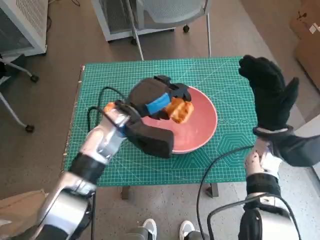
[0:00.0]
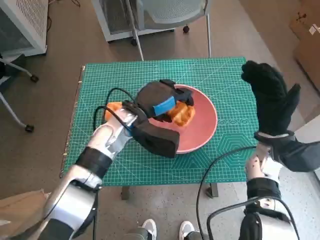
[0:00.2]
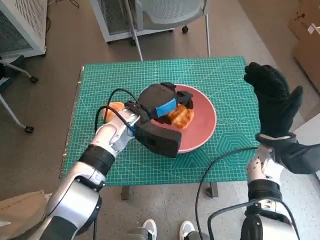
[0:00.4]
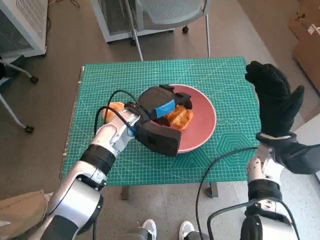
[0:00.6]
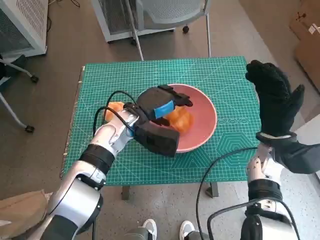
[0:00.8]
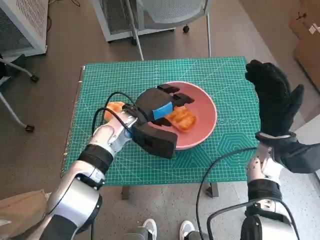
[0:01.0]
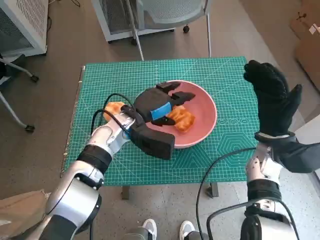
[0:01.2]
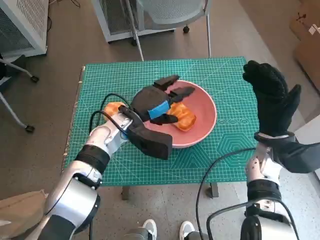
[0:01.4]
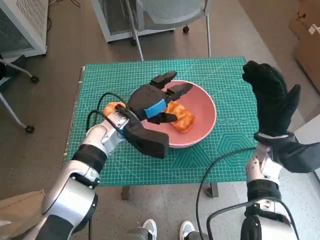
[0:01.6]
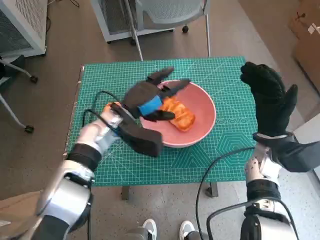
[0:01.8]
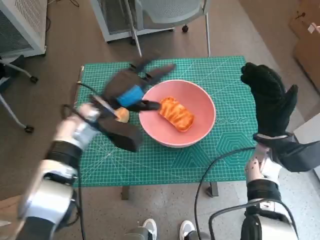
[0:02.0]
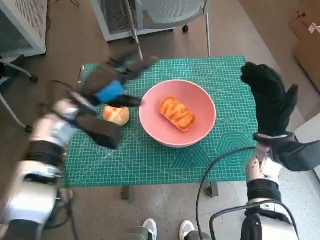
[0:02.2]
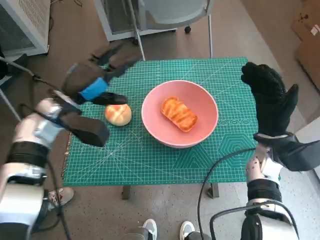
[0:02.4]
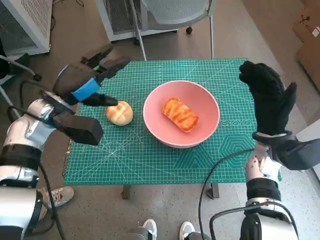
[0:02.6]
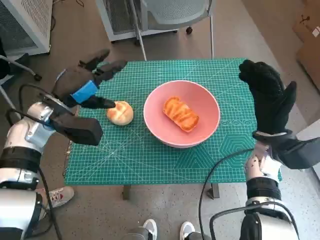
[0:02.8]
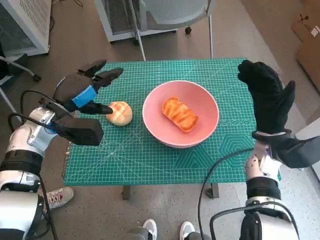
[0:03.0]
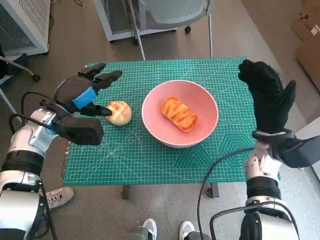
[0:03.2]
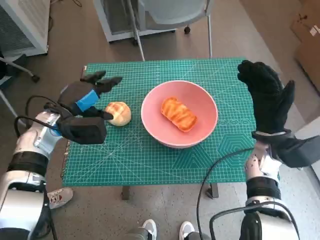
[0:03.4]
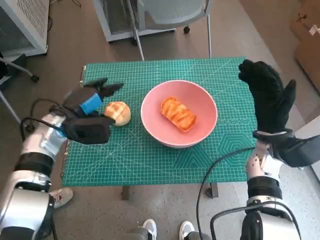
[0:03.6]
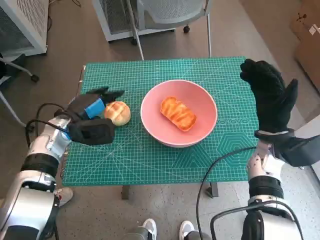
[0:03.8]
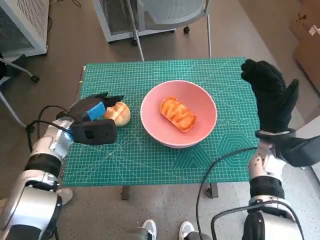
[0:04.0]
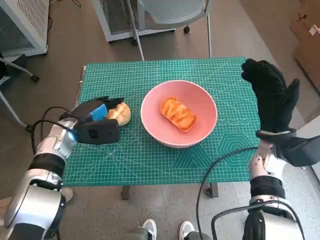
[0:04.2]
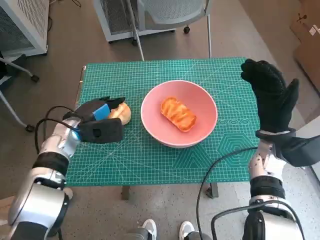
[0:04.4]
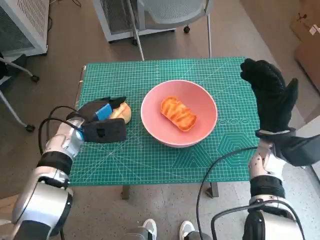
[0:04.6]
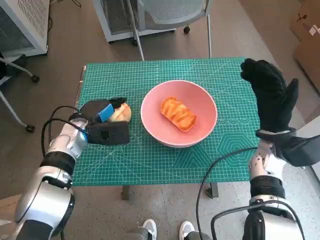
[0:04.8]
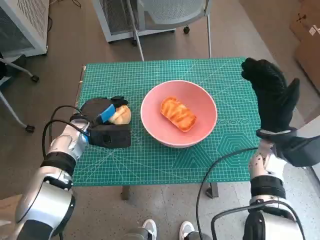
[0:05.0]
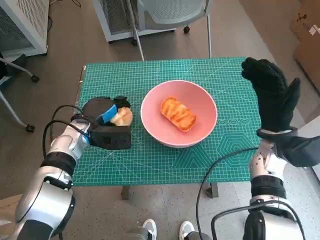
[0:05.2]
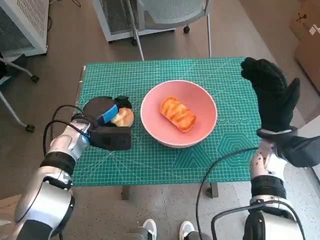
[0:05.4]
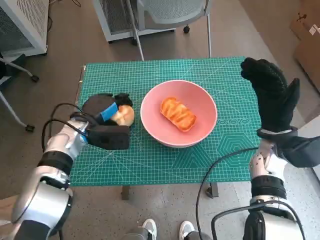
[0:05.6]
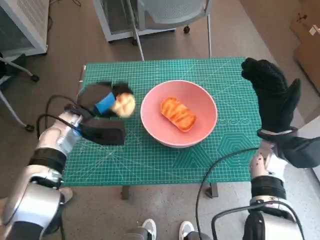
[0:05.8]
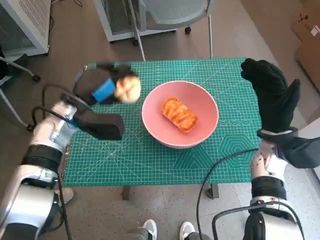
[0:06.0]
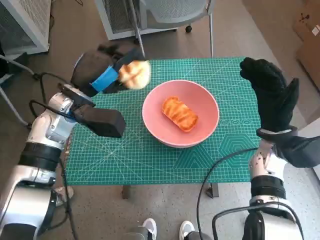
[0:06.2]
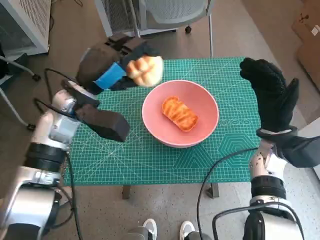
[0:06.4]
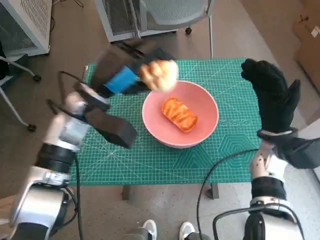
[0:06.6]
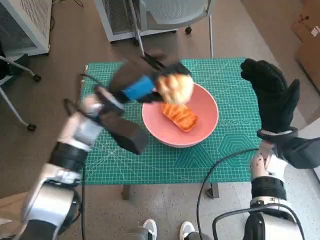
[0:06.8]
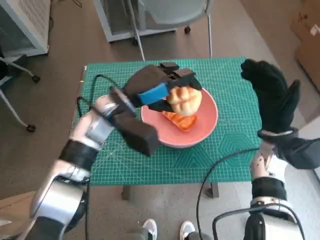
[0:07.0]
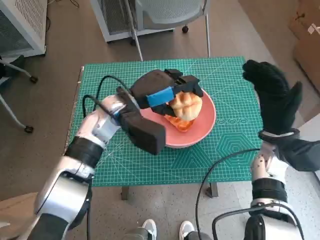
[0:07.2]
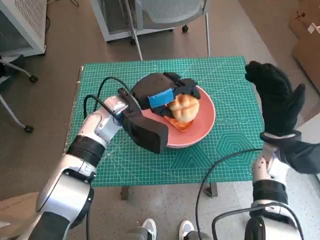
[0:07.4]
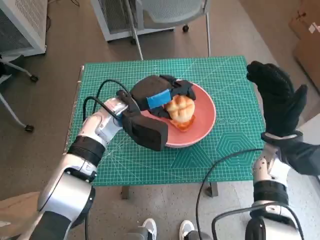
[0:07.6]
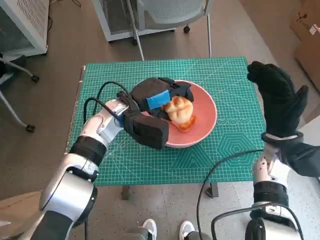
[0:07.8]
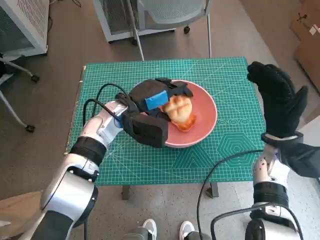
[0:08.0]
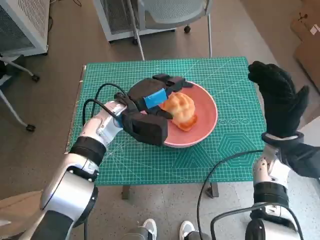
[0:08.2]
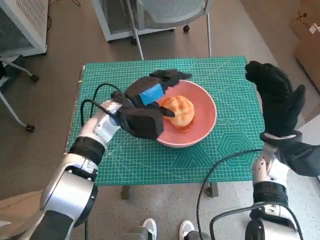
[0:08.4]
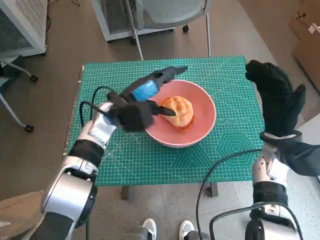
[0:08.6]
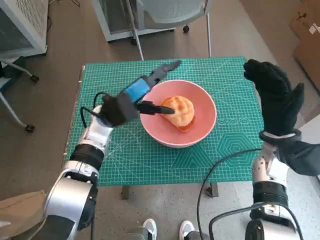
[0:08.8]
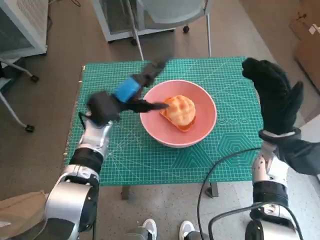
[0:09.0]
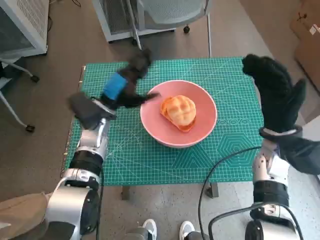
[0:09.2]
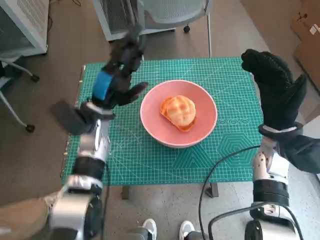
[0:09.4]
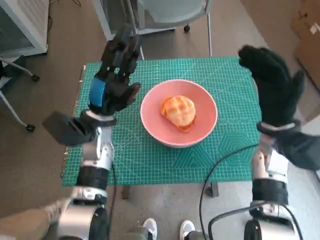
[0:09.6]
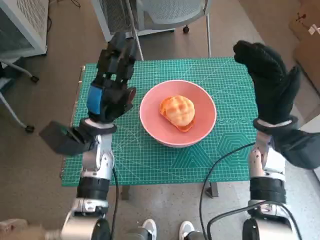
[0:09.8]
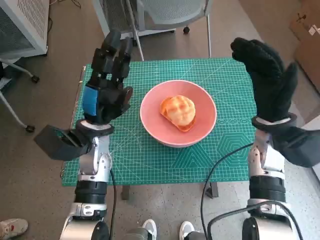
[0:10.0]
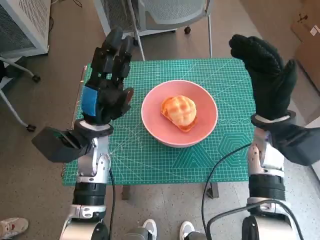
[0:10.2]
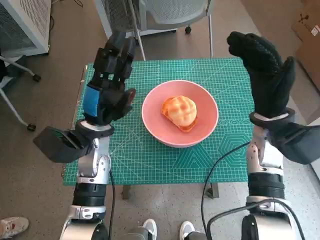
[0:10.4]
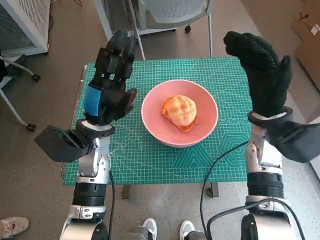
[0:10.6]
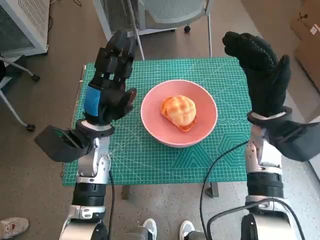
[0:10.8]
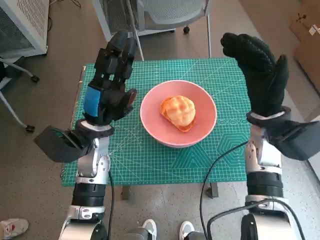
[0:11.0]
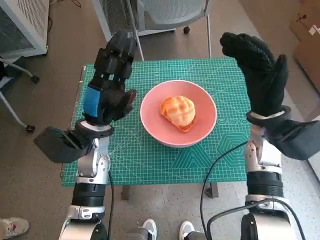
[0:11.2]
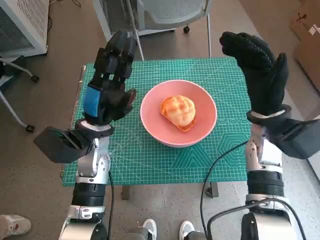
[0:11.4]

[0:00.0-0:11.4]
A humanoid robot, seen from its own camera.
Step, 0:01.4 to 0:05.0: Grasp the round bread with left hand.
Step, 0:05.2 to 0:08.2: Place the round bread in pink bowl with left hand.
0:00.0 to 0:01.4: The hands make only small movements.
0:01.4 to 0:02.8: The left hand heads to the left and upward, covering roughly 15 cm.
0:02.8 to 0:04.2: The left hand moves downward, roughly 5 cm.
0:04.2 to 0:05.6: The hands make only small movements.
0:05.6 to 0:07.2: The left hand shifts roughly 15 cm to the right and upward.
0:08.6 to 0:10.0: The right hand ends up approximately 5 cm from where it was. Meanwhile the left hand travels backward by about 5 cm.
0:10.0 to 0:11.4: The hands move only a little.

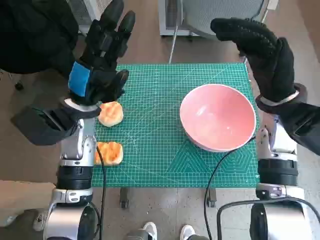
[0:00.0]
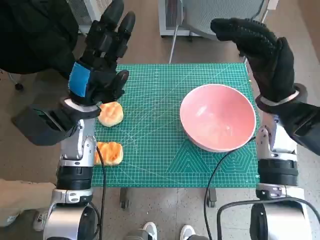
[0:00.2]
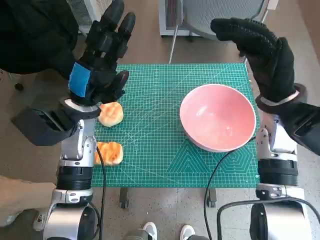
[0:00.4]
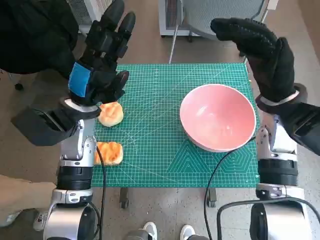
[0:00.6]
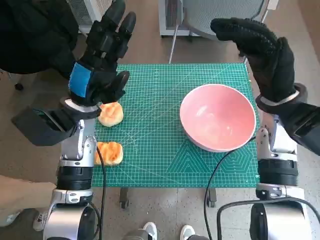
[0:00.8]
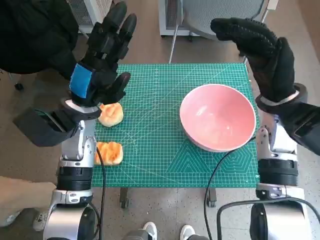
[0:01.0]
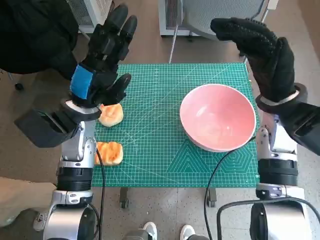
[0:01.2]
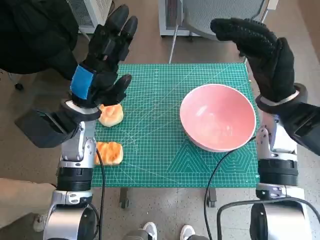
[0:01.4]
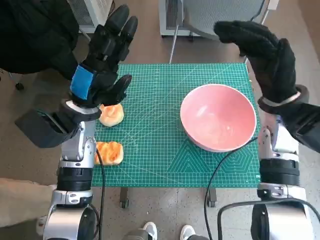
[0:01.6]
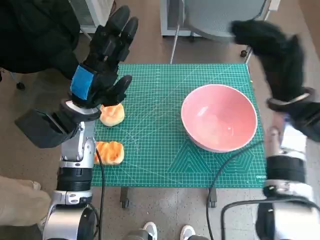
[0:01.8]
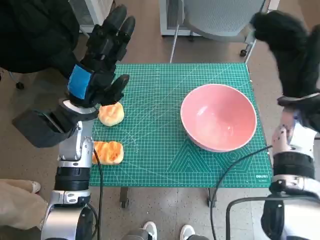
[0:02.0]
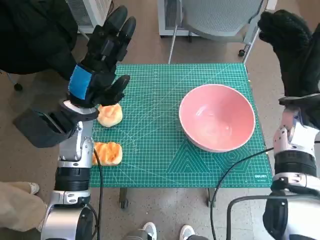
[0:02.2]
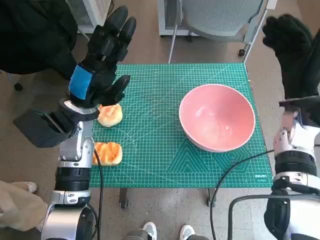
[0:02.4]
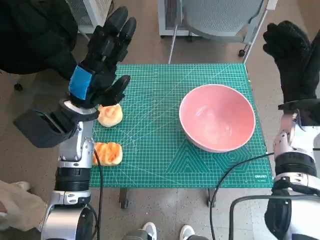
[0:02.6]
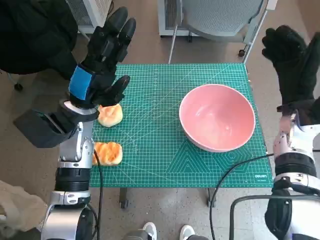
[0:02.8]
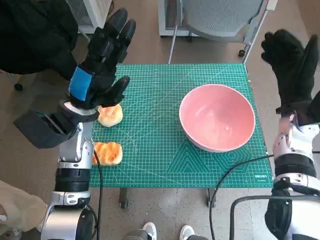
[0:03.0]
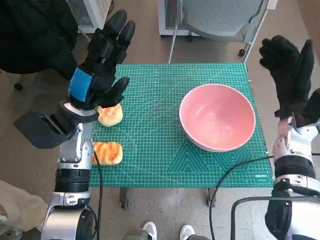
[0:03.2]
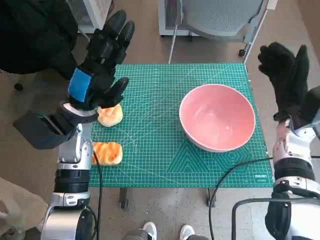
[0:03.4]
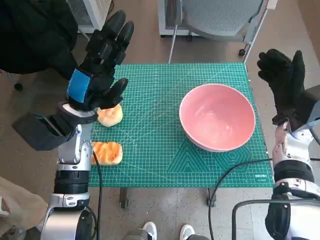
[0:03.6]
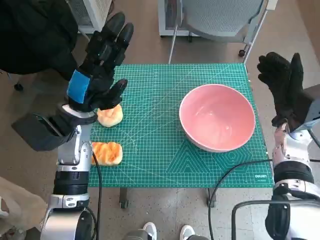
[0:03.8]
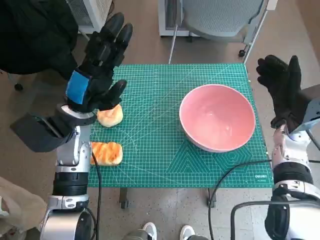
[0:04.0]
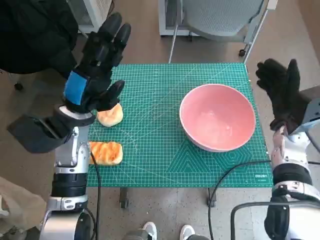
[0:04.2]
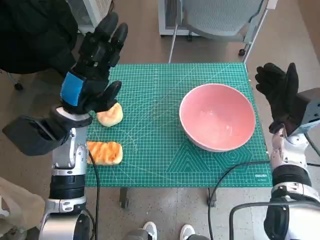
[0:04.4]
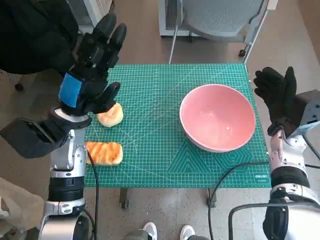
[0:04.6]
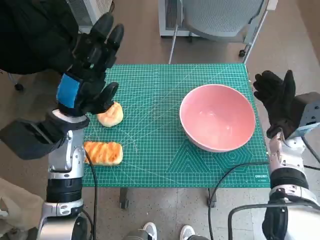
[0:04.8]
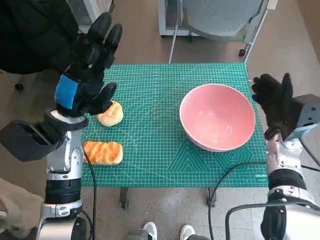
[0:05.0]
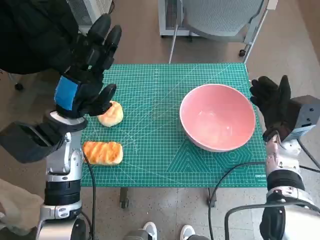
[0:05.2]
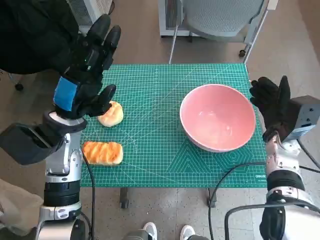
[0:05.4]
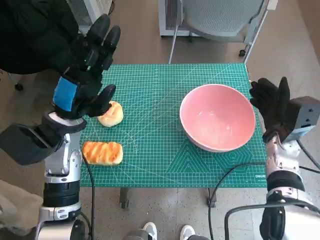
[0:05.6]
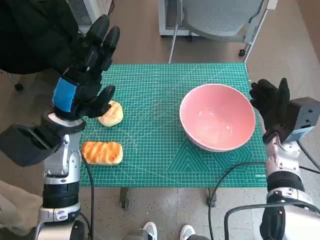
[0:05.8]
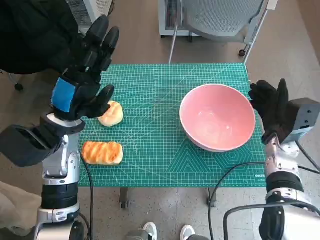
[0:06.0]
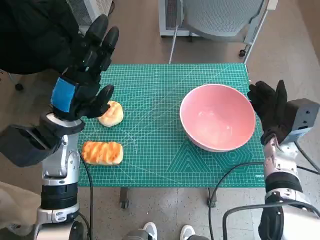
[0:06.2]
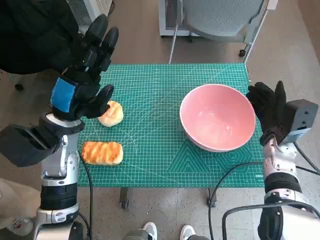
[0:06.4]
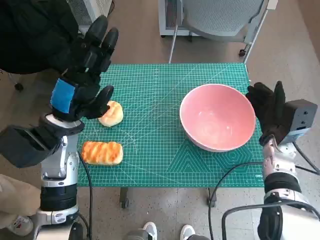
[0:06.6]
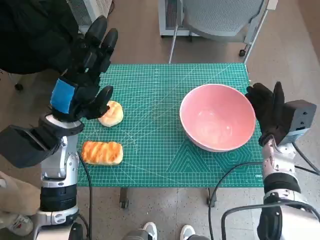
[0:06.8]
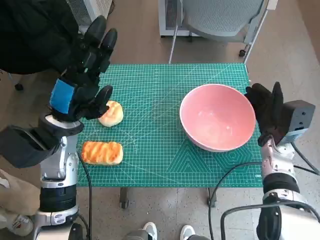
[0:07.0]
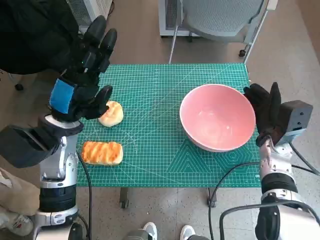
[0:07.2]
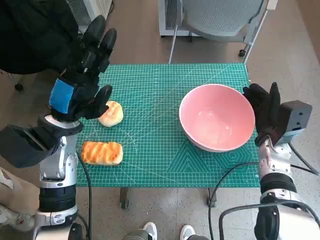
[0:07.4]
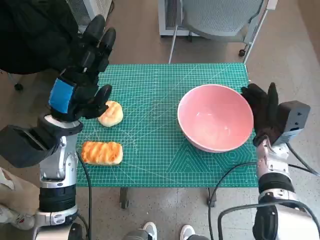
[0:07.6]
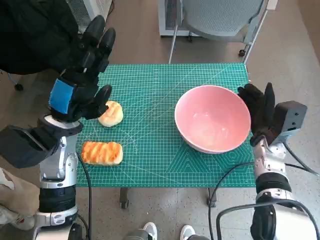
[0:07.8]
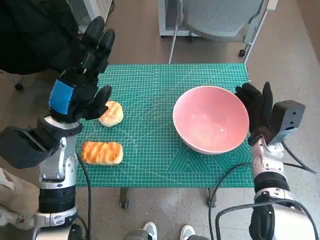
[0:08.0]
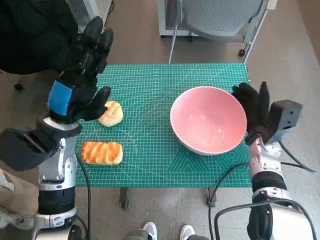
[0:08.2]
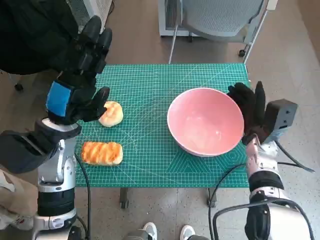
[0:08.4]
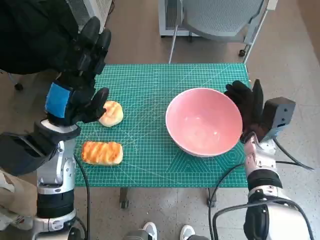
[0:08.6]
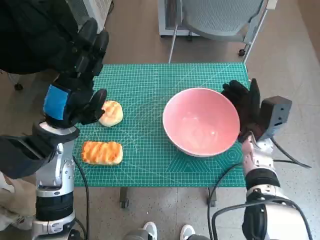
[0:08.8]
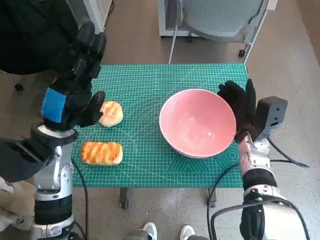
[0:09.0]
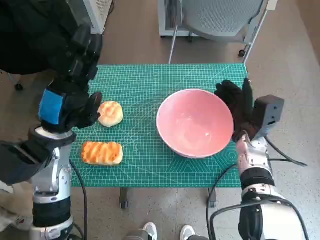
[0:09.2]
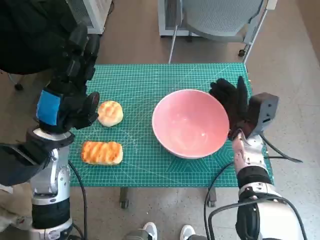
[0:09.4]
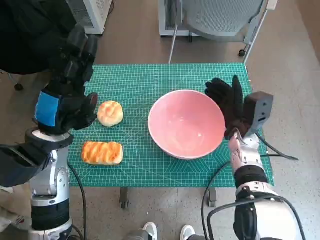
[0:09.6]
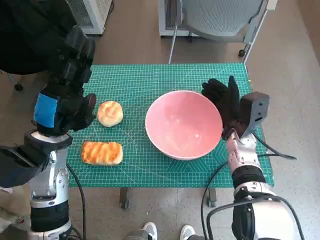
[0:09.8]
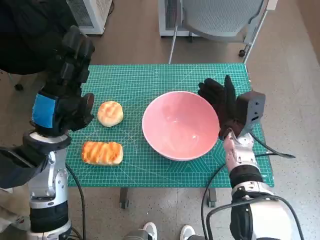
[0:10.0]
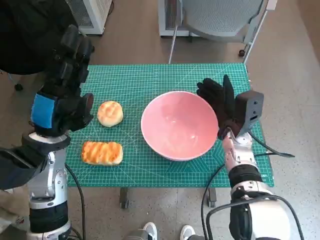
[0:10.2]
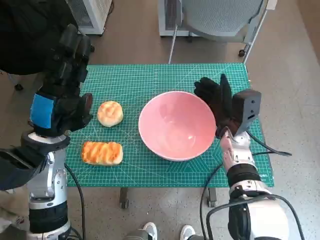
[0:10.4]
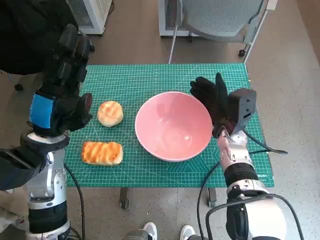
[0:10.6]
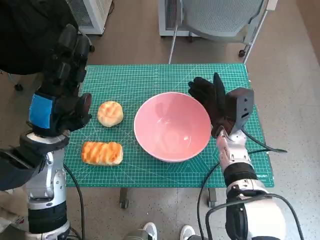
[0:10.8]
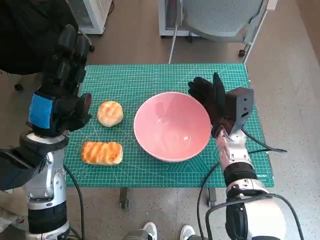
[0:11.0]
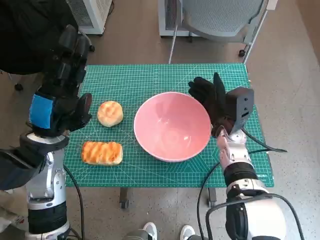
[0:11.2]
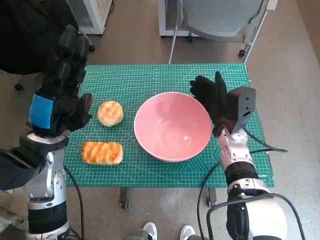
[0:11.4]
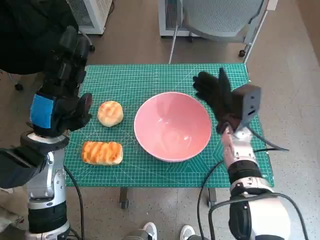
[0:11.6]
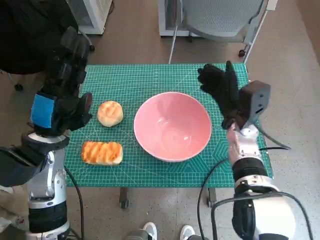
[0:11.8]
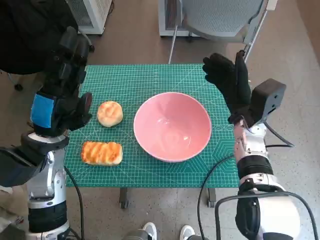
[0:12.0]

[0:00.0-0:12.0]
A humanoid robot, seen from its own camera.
Step, 0:00.0 to 0:11.6: Move the pink bowl to the center of table with right hand.
0:01.6 to 0:03.0: The right hand moves to the right and downward, about 5 cm.
0:06.0 to 0:07.6: The hands make only small movements.
0:10.4 to 0:12.0: The hands make only small movements.
